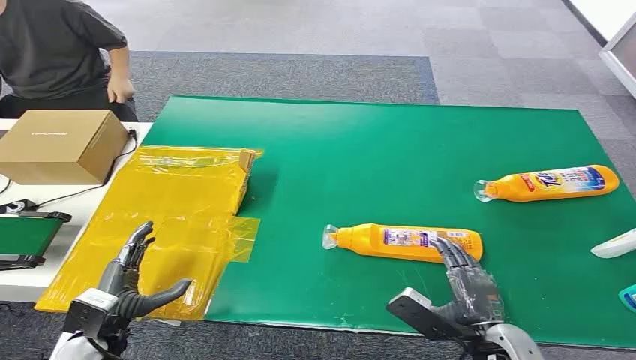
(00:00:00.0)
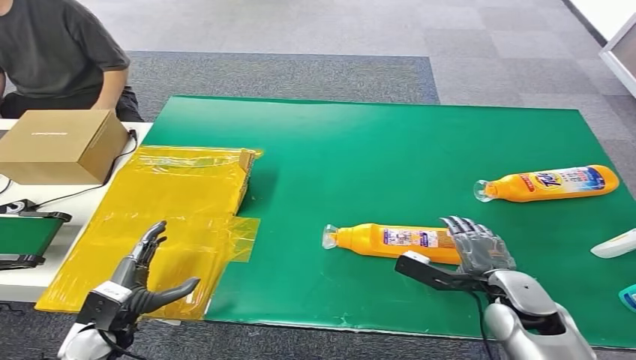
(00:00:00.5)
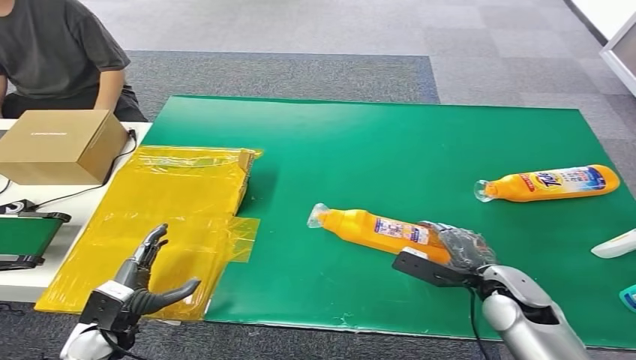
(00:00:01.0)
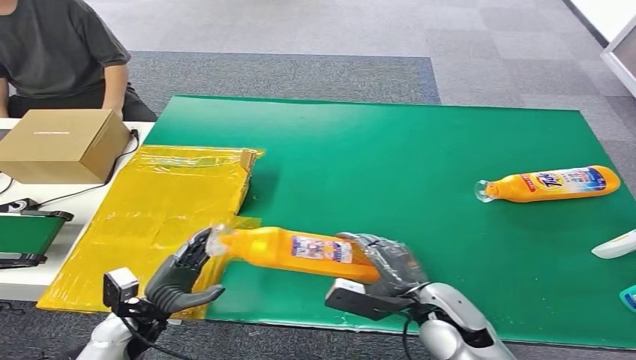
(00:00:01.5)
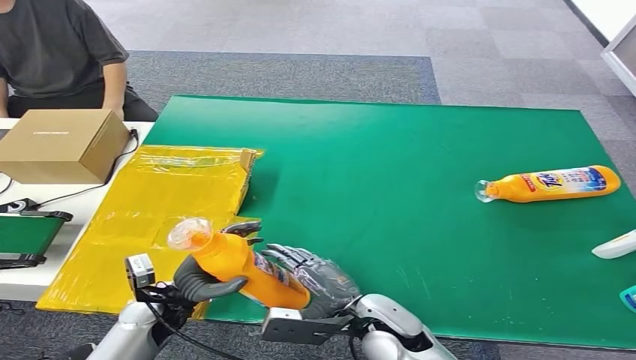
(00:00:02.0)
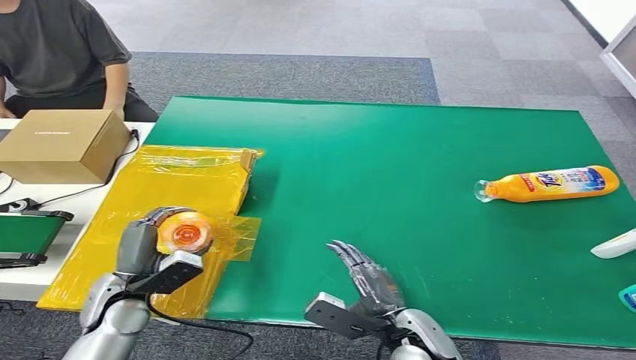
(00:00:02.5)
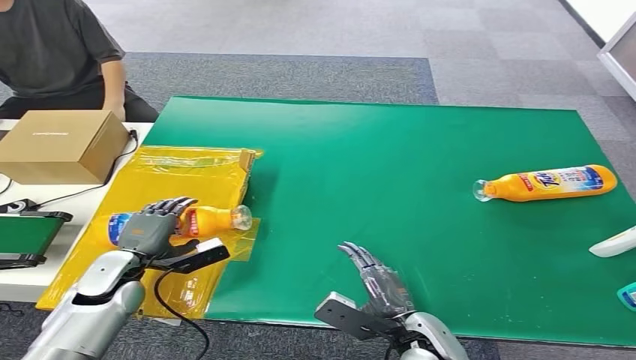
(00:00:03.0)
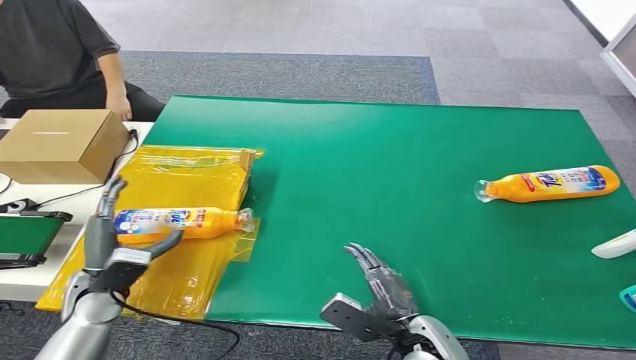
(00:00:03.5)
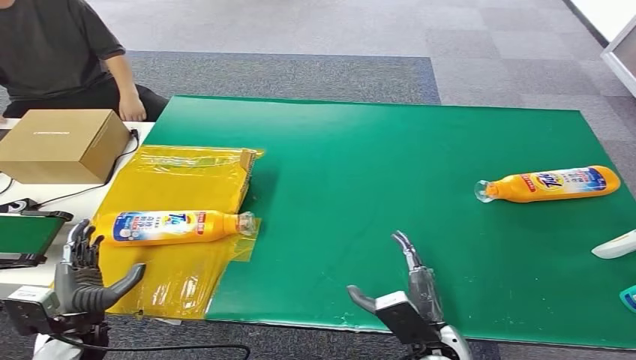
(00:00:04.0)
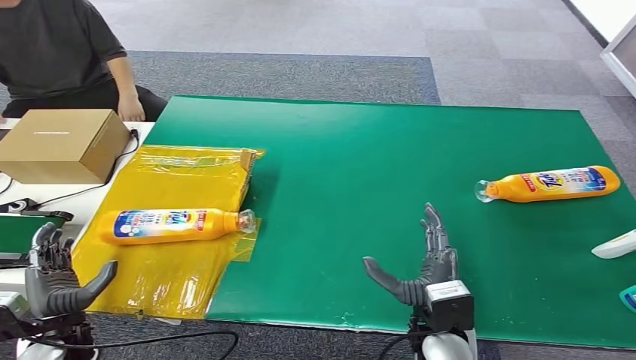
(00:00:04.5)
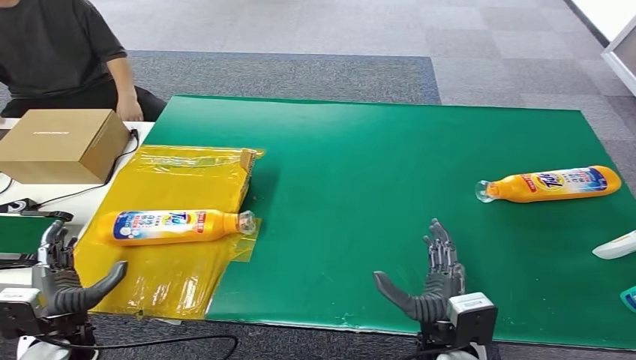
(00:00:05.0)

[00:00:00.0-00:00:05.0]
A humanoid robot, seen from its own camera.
Step, 00:00:00.0 to 00:00:01.0: Pick up the bottle from the table.
Step, 00:00:01.5 to 00:00:05.0: Turn the bottle to the front side.
